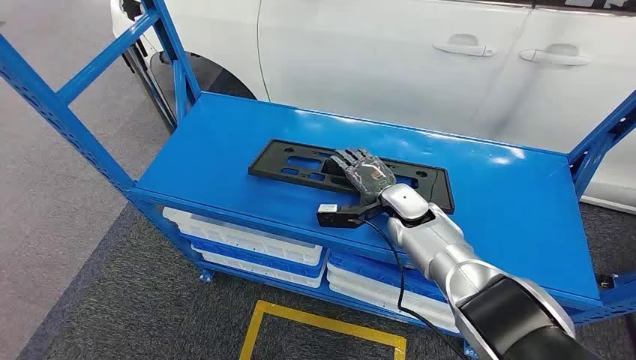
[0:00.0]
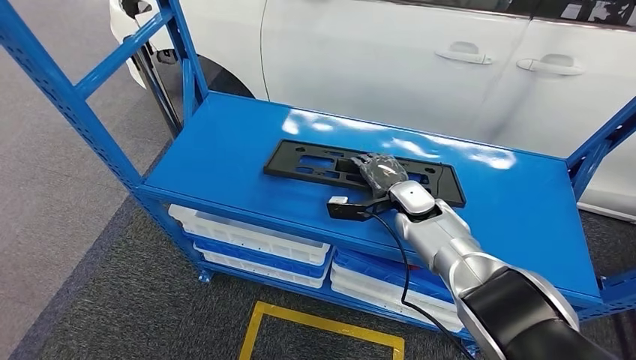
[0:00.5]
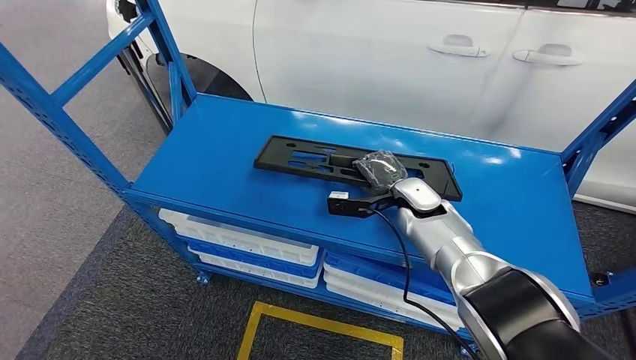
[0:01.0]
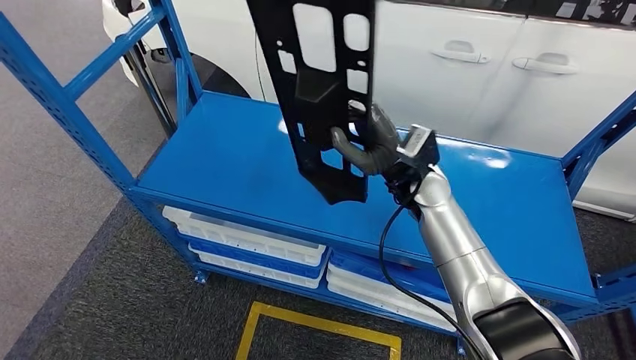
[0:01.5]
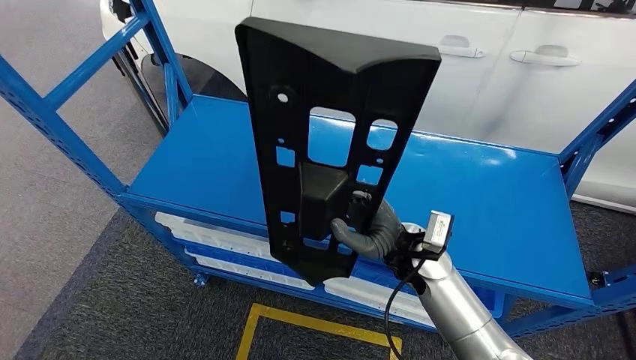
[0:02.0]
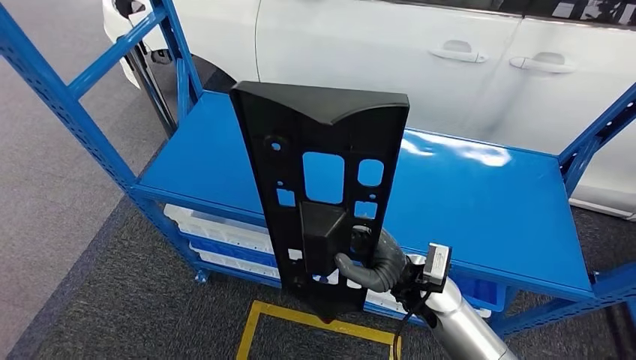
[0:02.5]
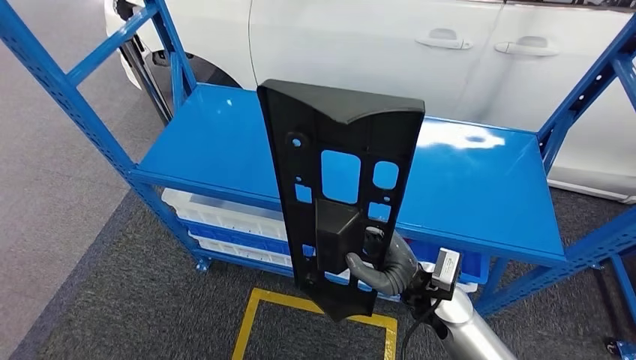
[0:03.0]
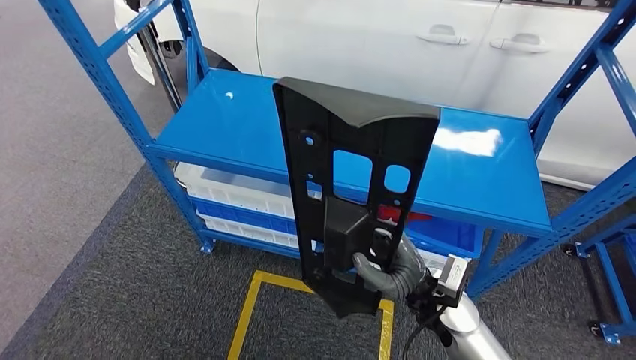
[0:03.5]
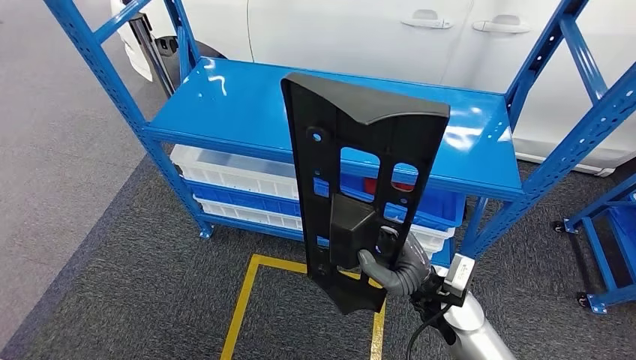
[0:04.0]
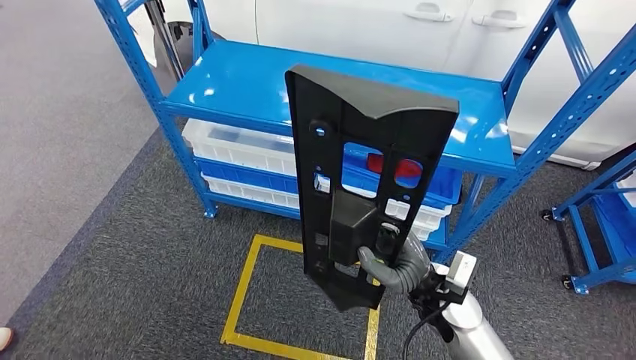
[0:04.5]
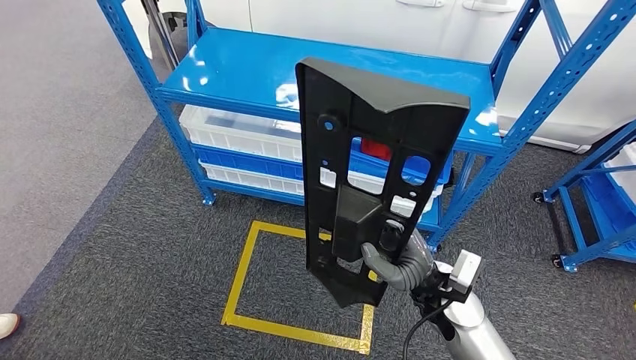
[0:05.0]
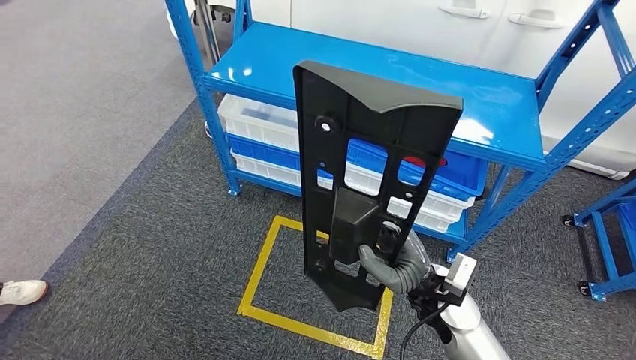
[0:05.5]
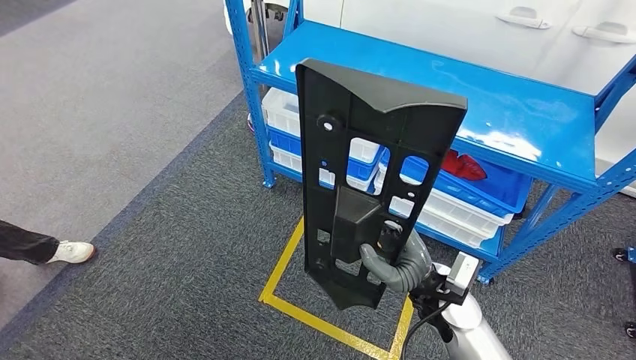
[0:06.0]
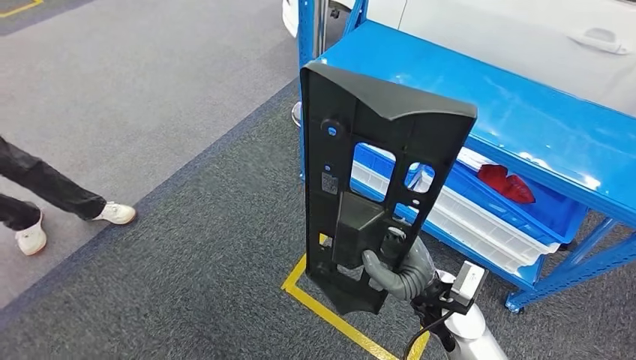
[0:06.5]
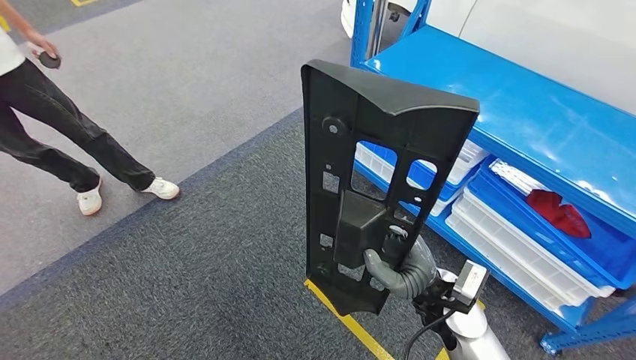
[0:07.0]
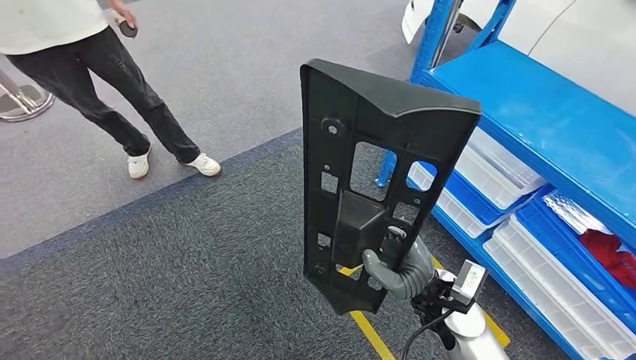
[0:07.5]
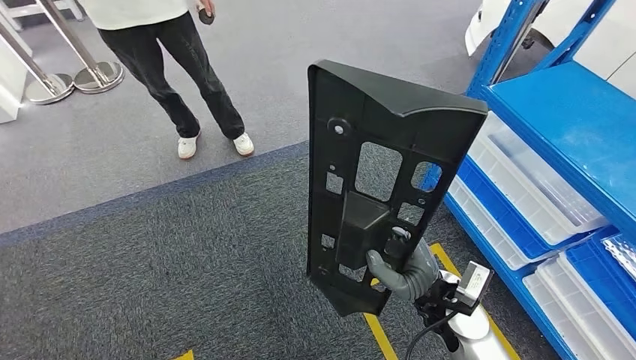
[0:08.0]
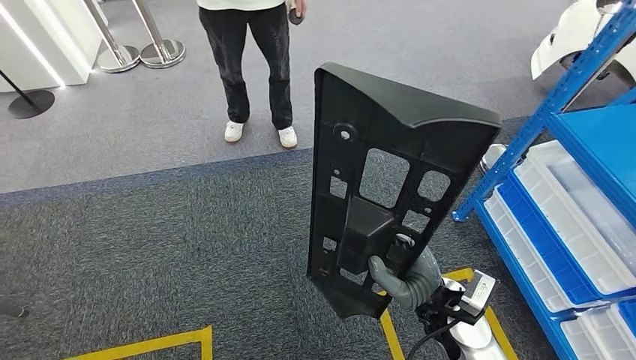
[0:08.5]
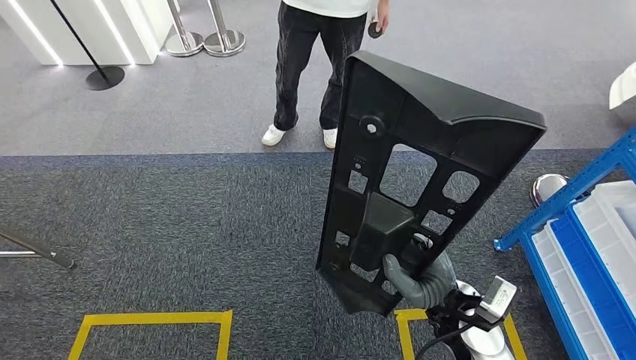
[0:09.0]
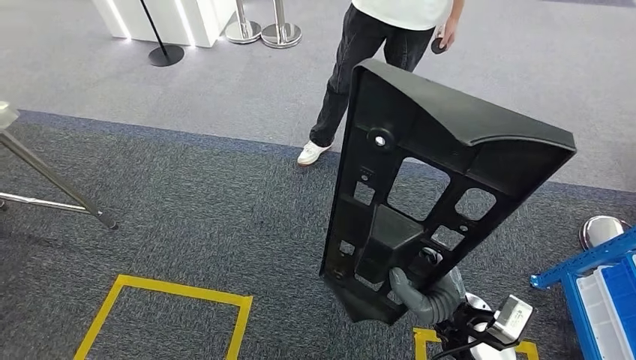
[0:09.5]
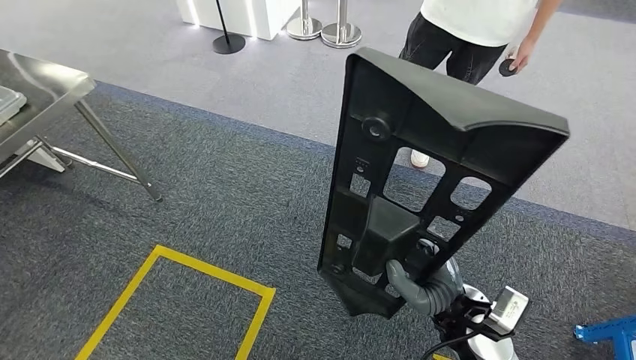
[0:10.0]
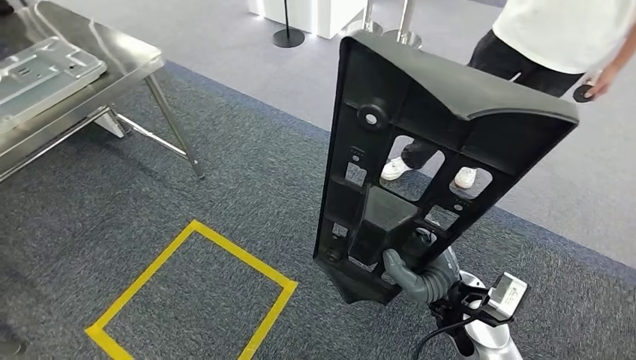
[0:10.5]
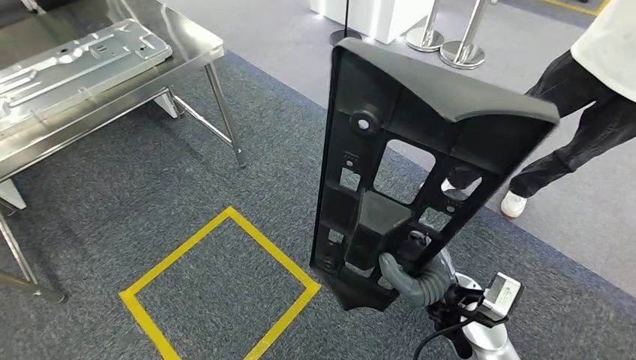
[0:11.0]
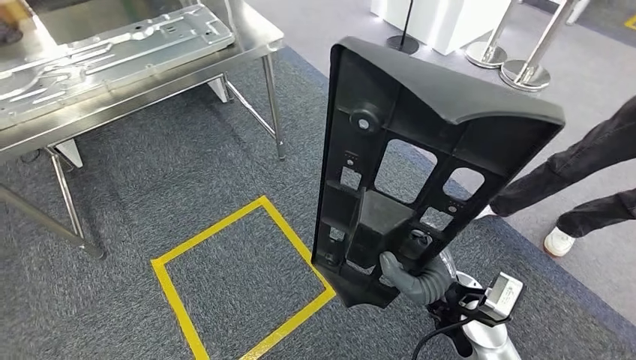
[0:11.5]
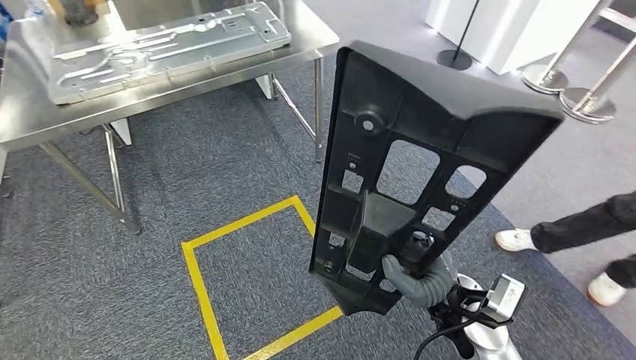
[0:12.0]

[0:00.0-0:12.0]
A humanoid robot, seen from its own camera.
Step, 0:00.0 to 0:02.0: Pick up the large material from the shelf.

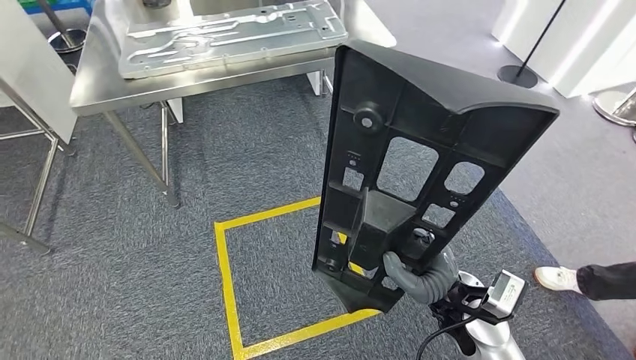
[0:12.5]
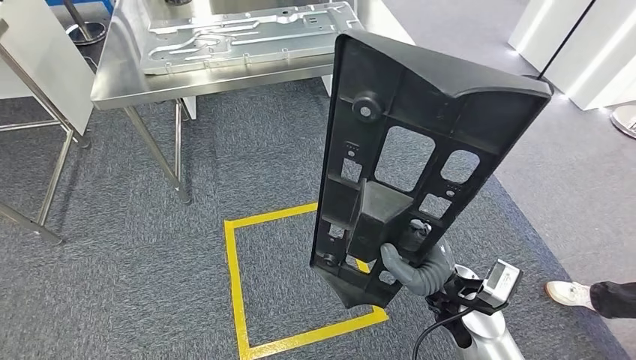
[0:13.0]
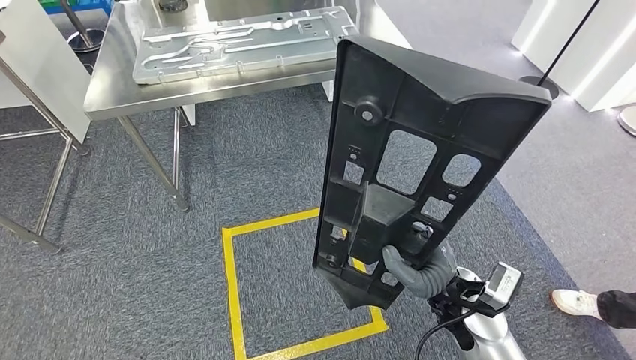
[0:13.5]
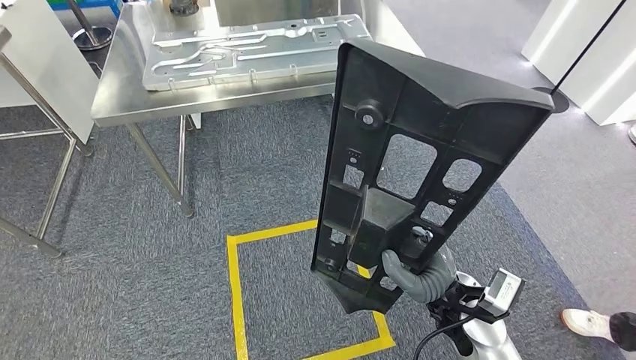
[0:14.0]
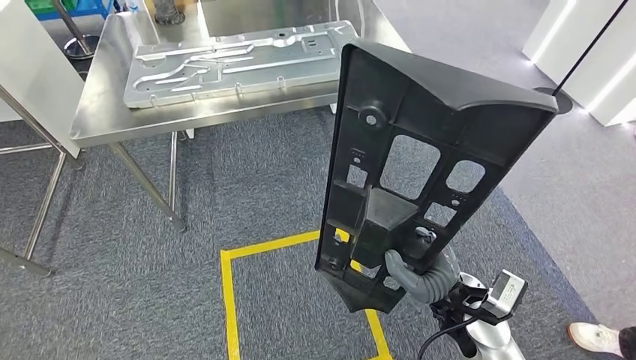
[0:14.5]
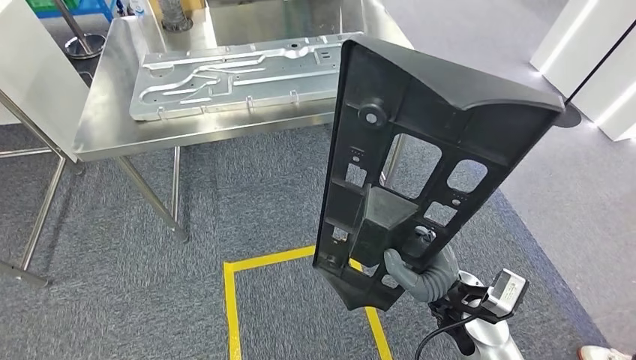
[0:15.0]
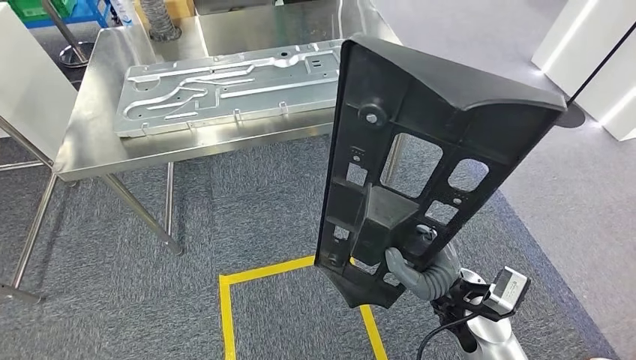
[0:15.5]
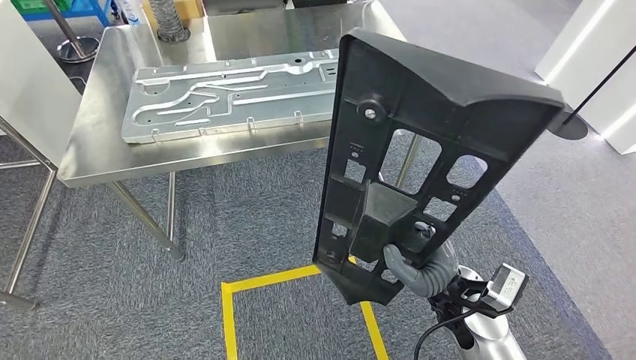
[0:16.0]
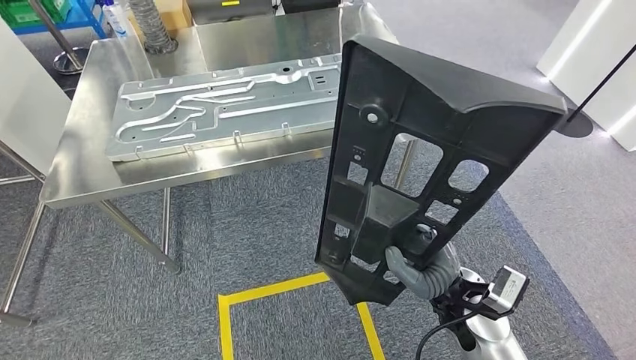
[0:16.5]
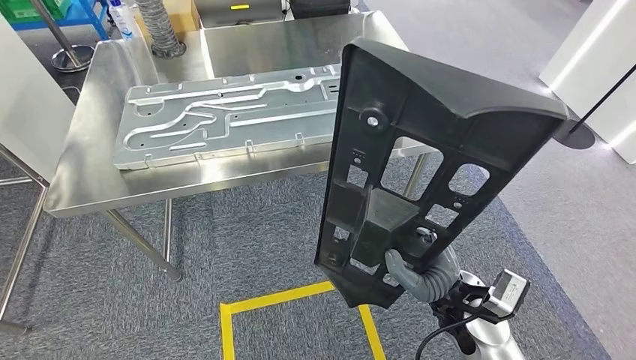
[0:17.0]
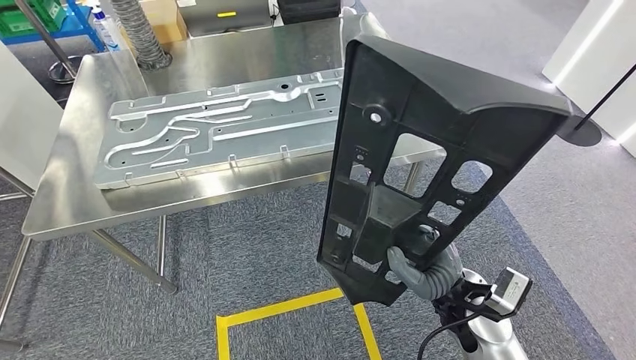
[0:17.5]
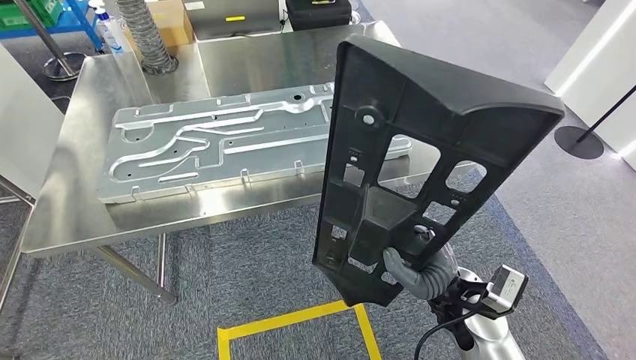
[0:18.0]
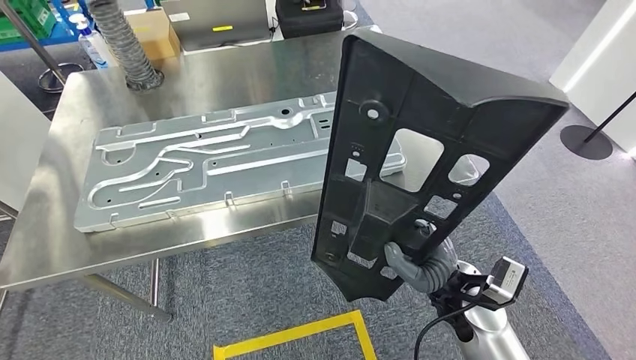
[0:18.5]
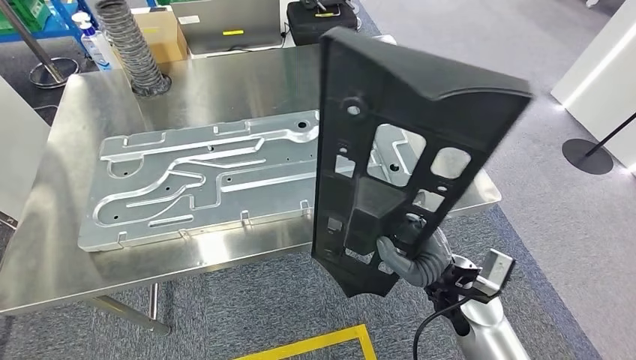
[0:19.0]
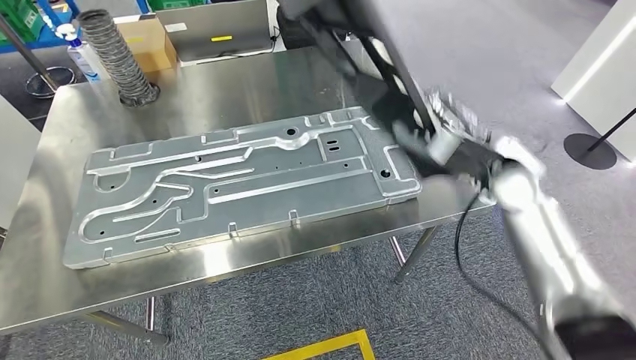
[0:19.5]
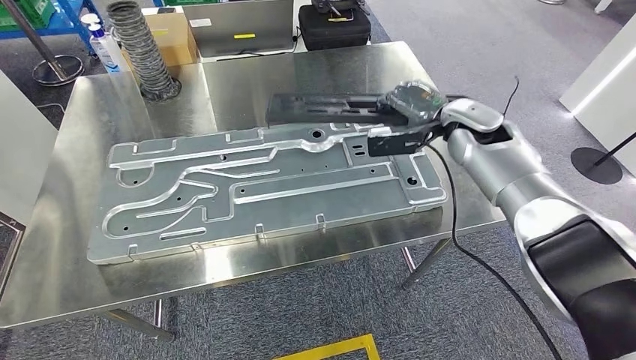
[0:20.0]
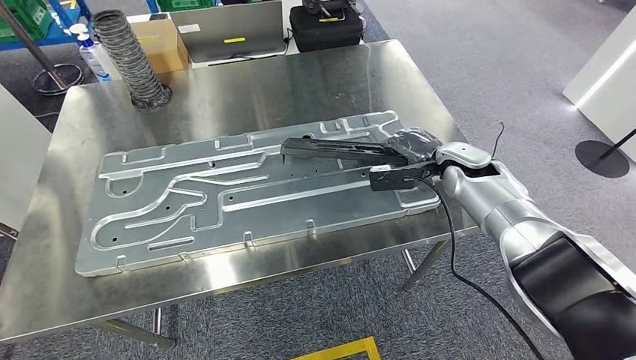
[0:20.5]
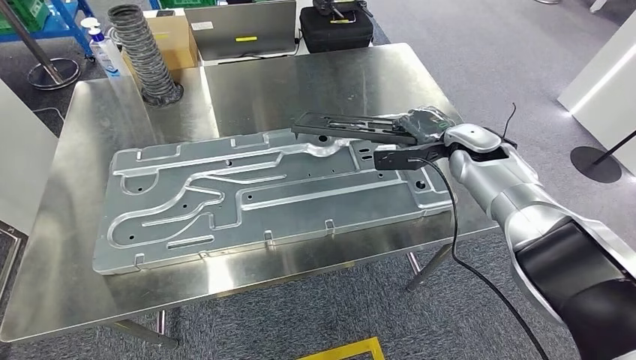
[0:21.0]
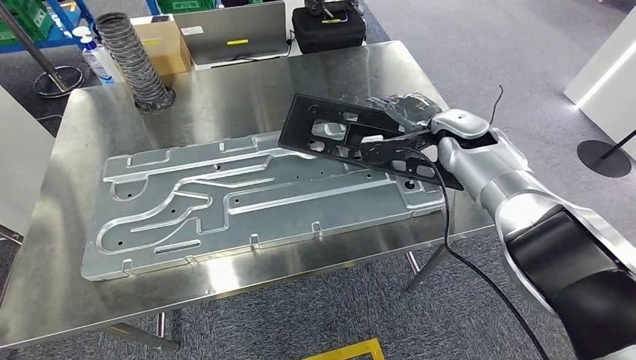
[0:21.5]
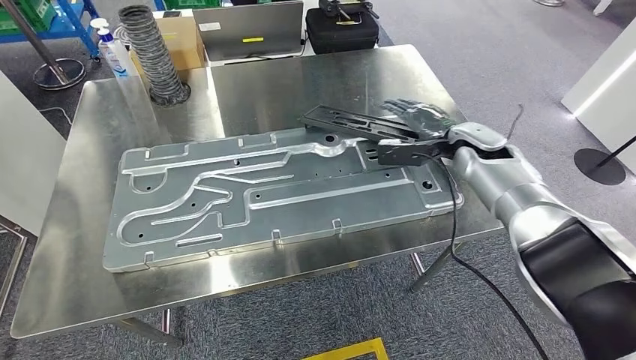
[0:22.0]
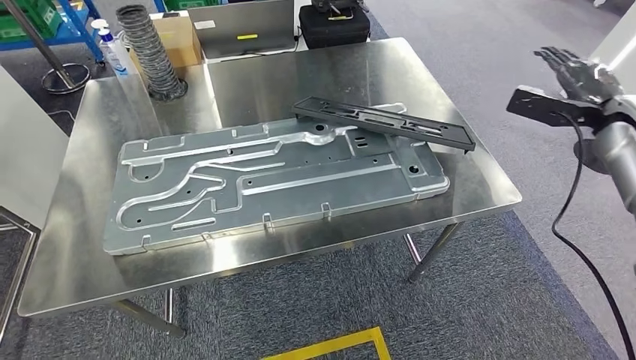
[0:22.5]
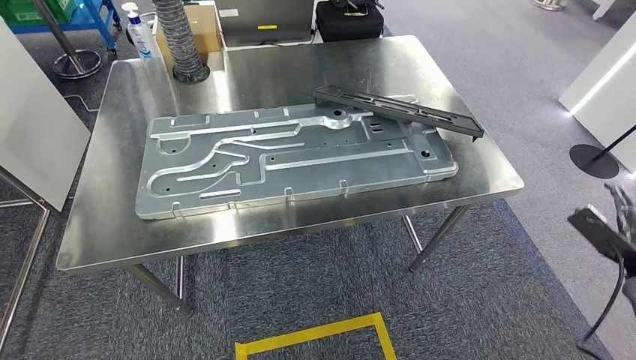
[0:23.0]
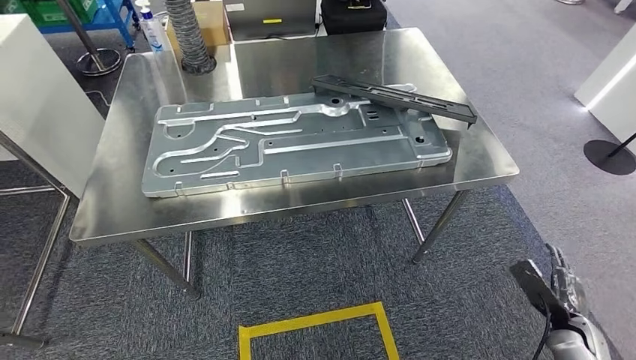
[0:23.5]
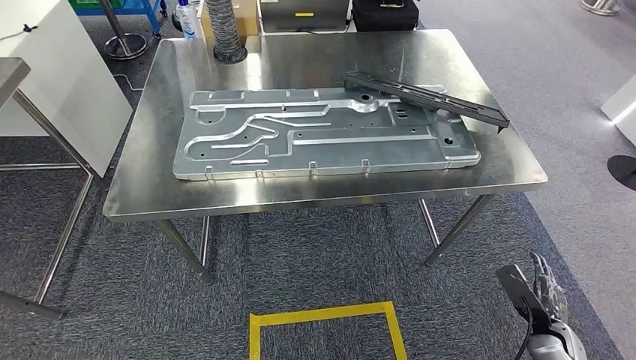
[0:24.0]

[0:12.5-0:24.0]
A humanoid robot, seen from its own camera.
Step, 0:12.5 to 0:14.5: Move the large material to the workbench.
Step, 0:16.5 to 0:22.0: Insert the large material into the corresponding slot on the workbench.
